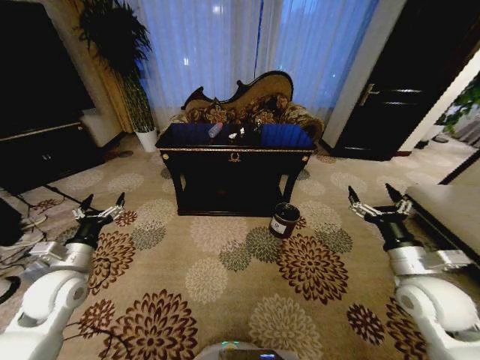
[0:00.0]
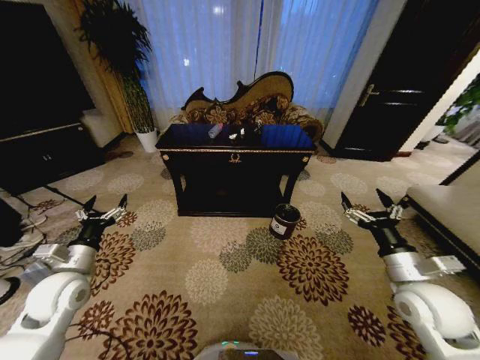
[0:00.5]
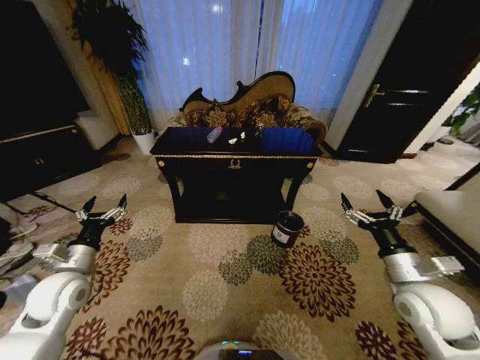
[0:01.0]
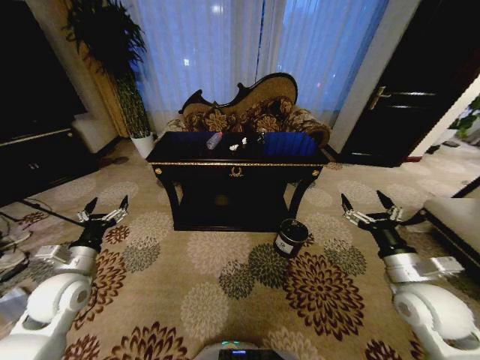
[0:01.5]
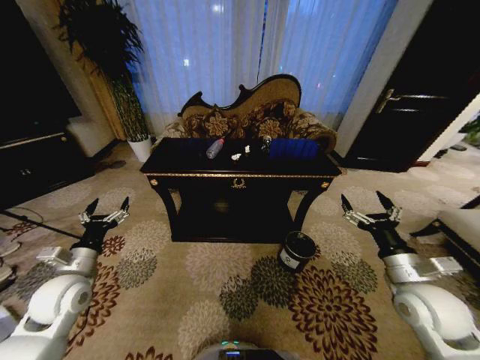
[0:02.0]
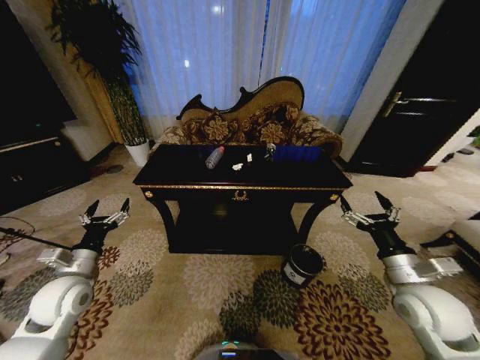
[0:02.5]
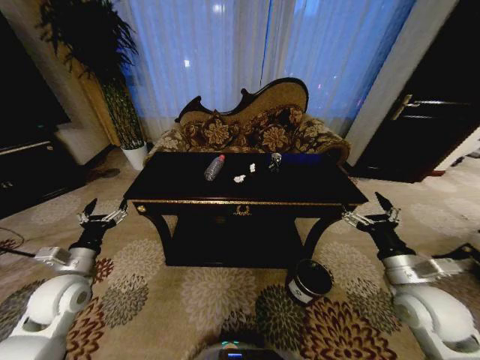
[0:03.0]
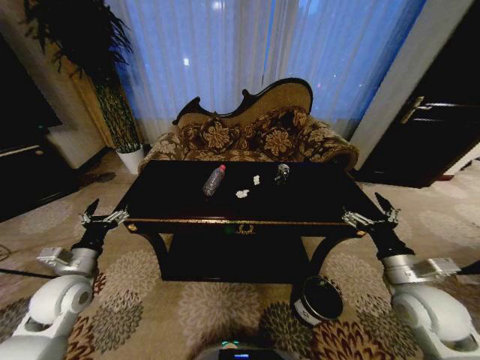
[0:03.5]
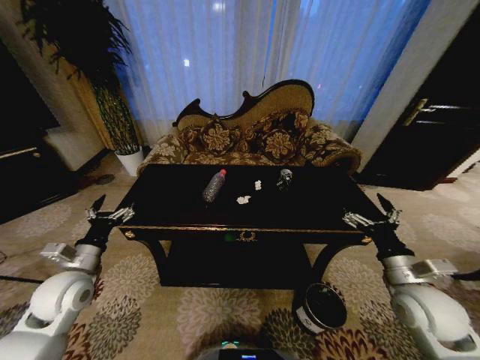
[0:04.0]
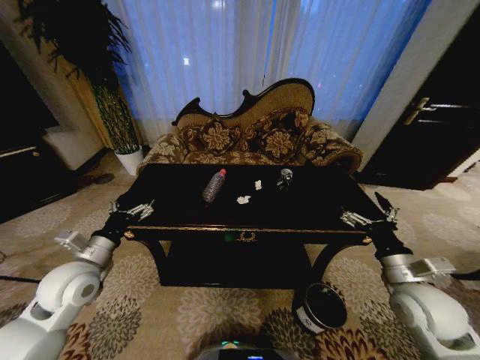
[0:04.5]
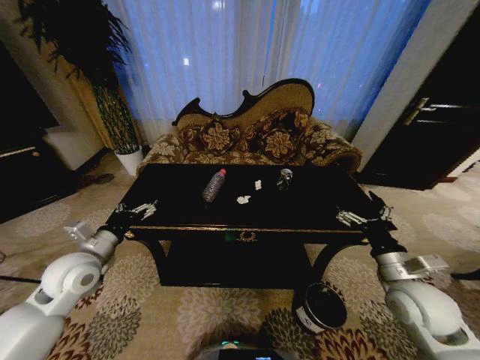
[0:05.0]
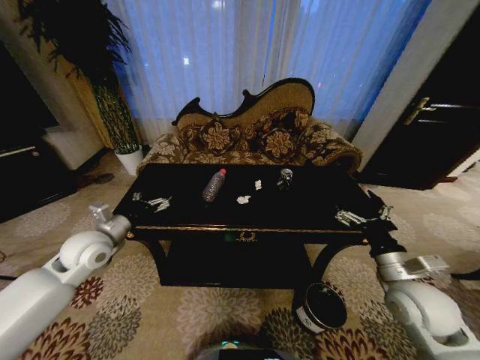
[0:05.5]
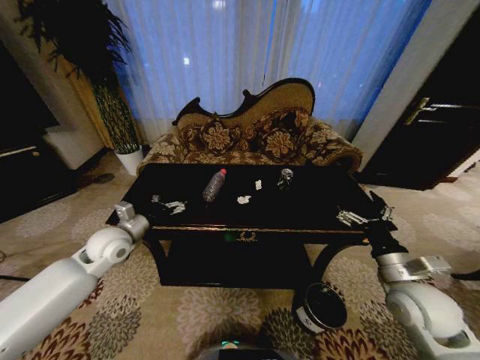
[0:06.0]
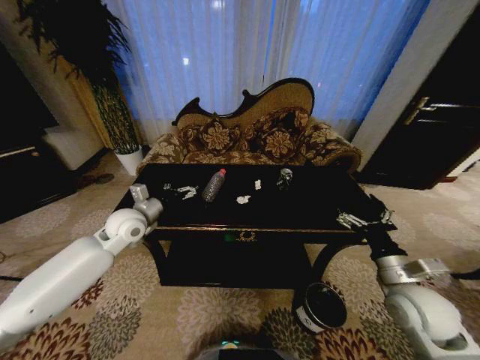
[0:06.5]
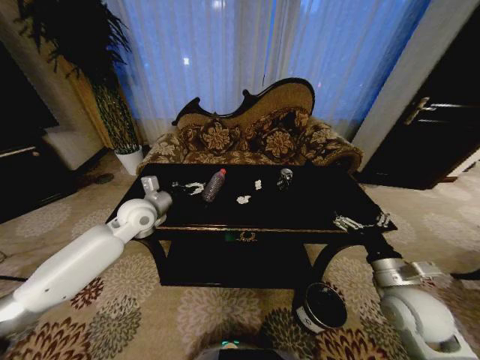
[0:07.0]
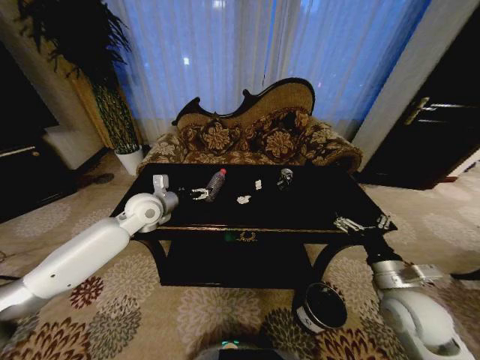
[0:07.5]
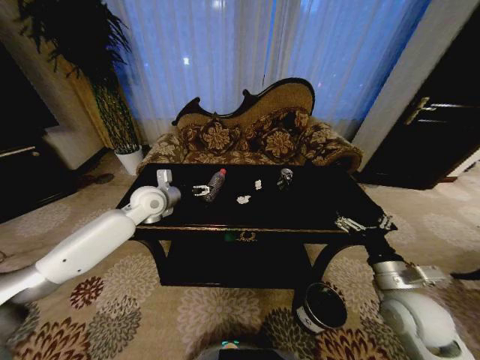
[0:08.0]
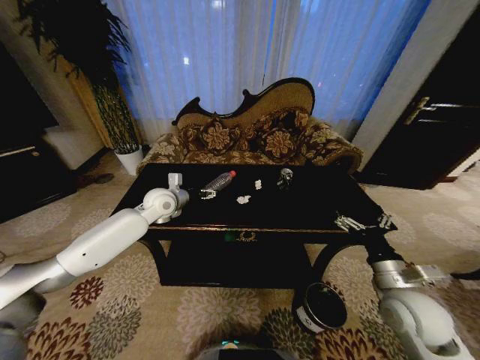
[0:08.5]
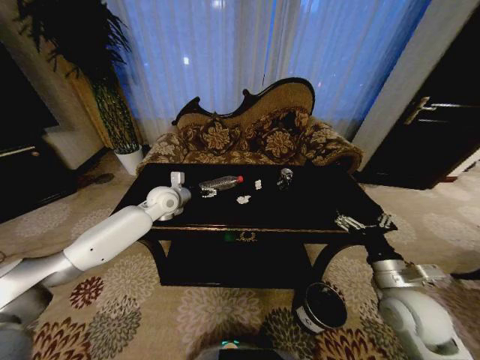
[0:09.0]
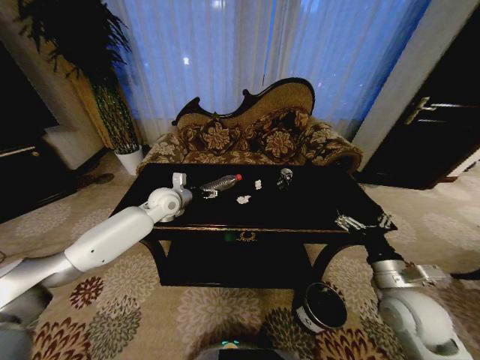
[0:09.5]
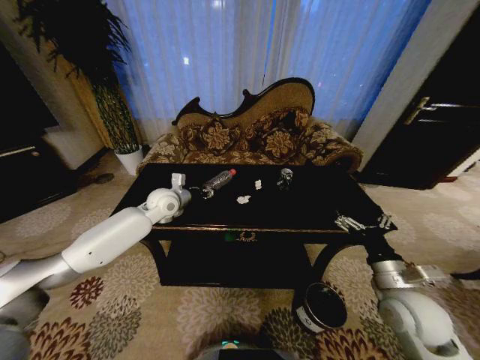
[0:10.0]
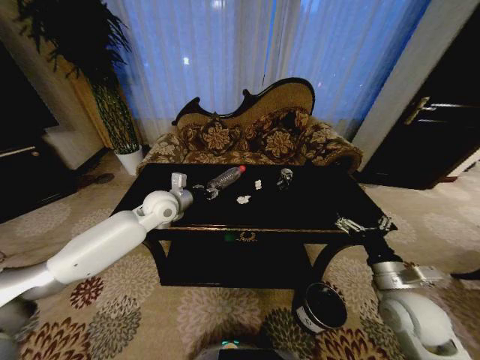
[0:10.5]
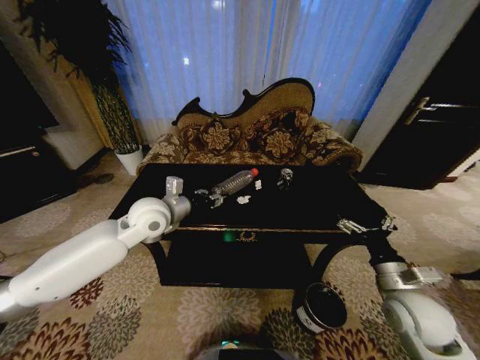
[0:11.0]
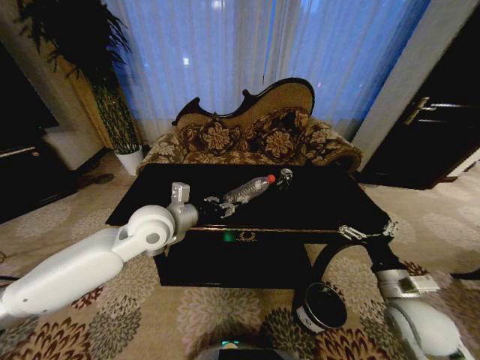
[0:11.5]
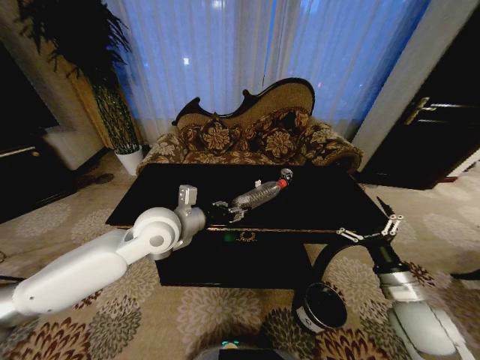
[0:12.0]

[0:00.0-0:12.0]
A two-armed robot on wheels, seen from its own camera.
Task of the whole recording: Move to the front of the table and place the trash on the table into the trash bin.
4.0 to 6.0 s: The left gripper is displaced forward and to the right by some 10 cm.
6.0 to 8.0 s: The left gripper travels forward, to the right and upward by approximately 15 cm.
8.0 to 10.0 s: The left gripper closes up.
10.0 to 12.0 s: The left gripper shifts about 15 cm backward and upward.

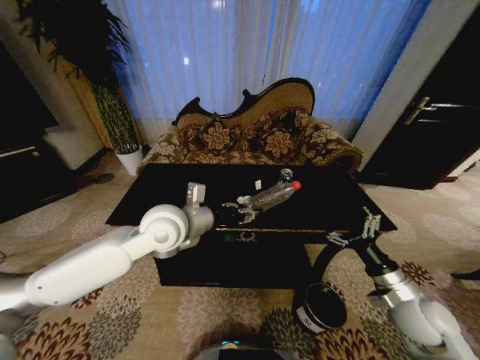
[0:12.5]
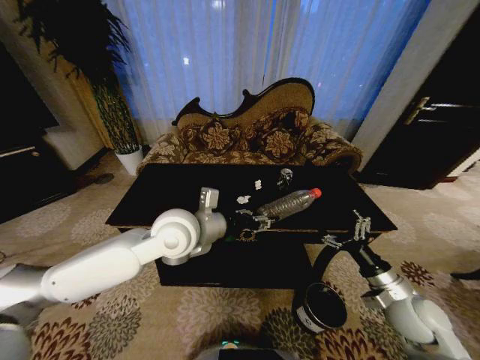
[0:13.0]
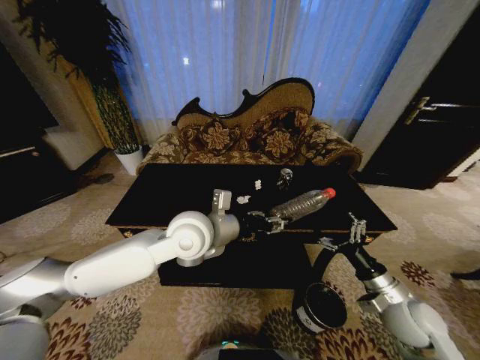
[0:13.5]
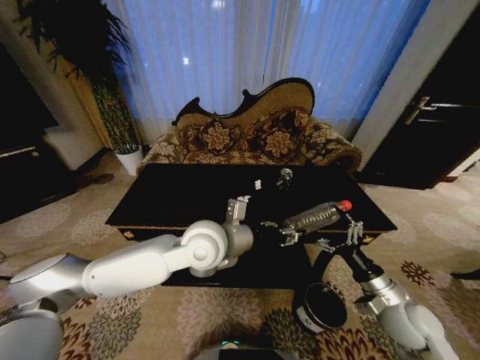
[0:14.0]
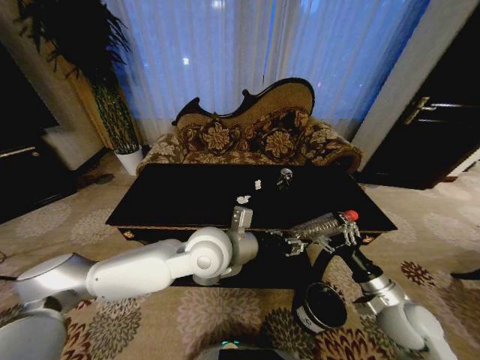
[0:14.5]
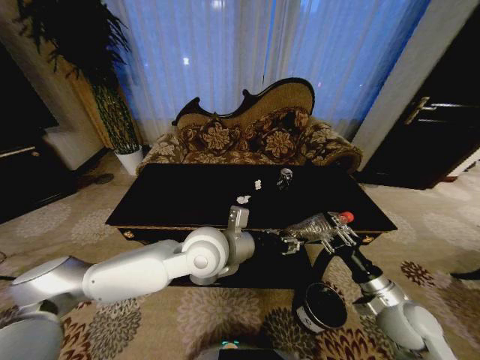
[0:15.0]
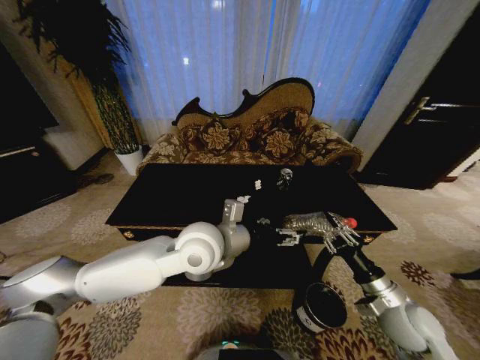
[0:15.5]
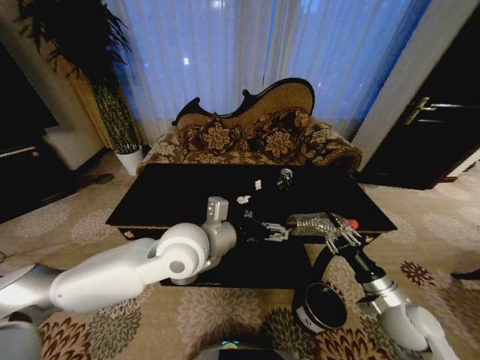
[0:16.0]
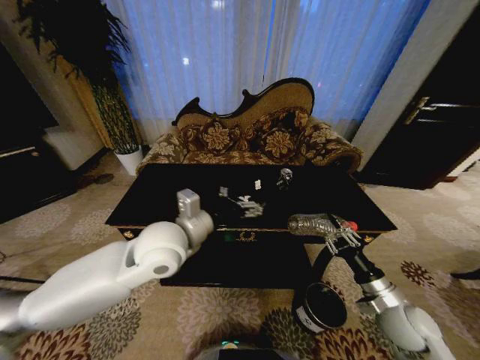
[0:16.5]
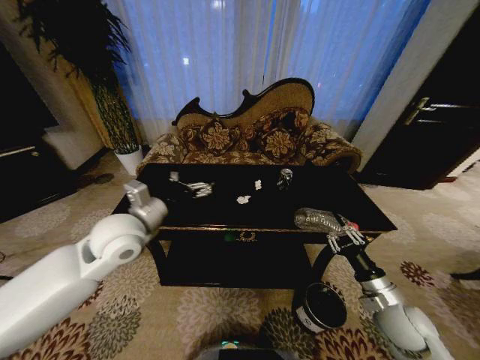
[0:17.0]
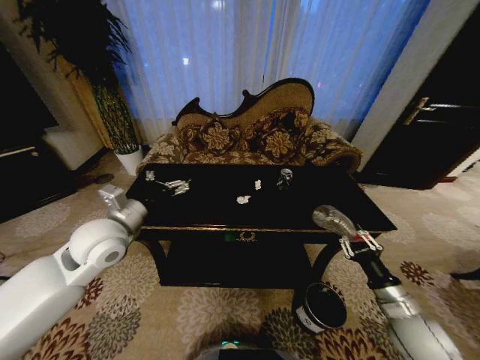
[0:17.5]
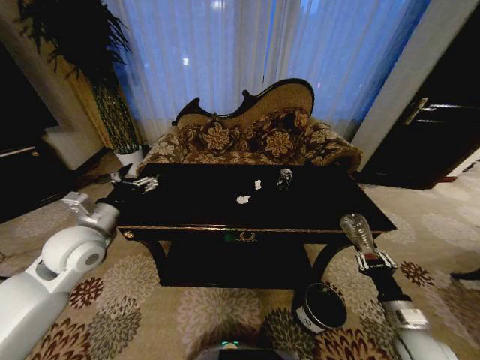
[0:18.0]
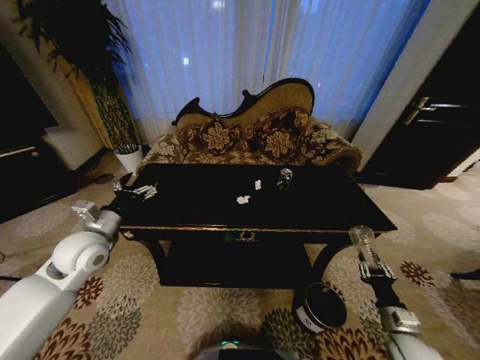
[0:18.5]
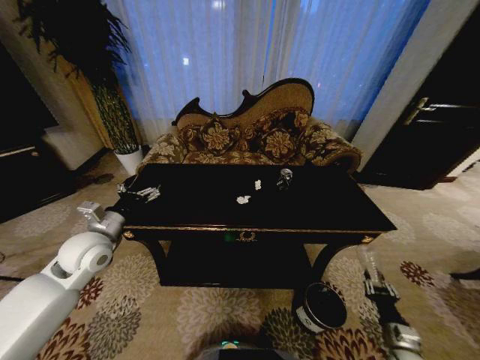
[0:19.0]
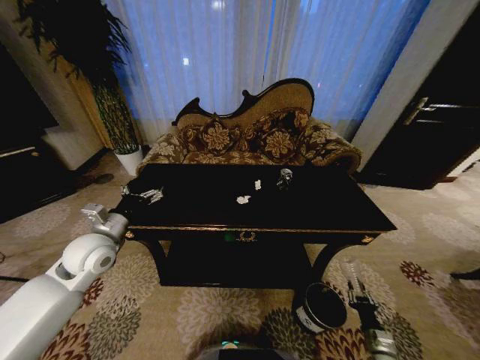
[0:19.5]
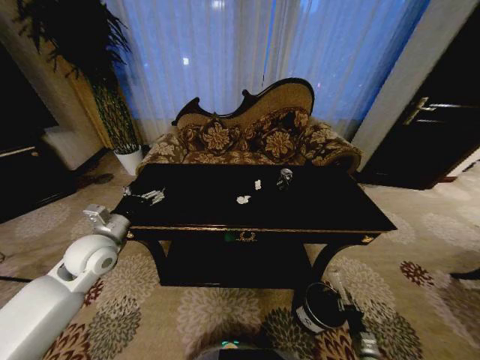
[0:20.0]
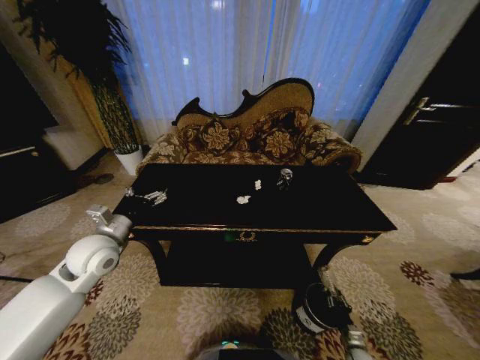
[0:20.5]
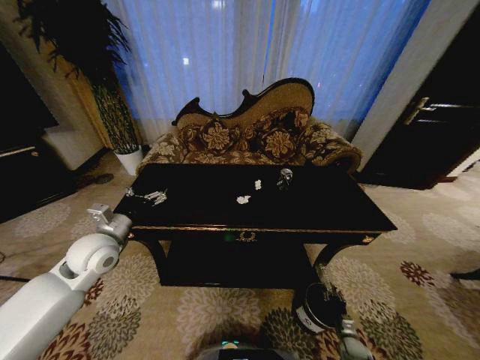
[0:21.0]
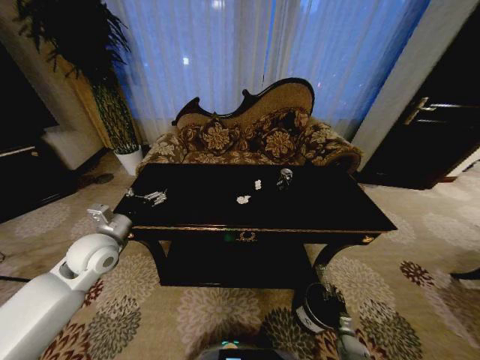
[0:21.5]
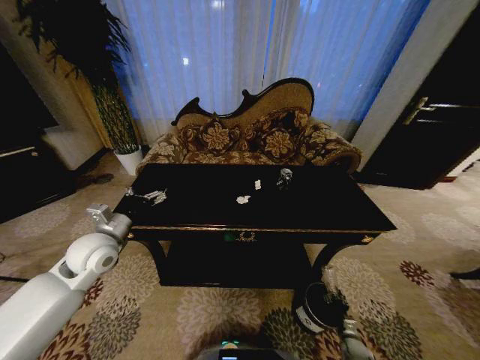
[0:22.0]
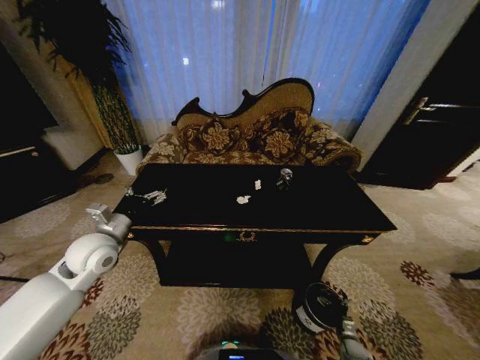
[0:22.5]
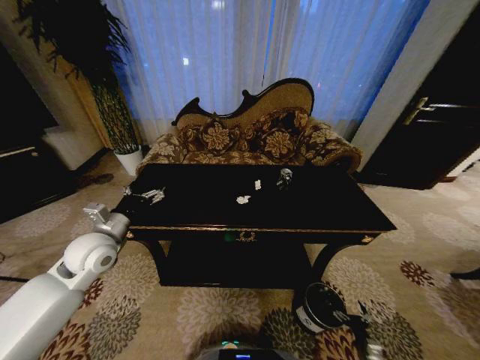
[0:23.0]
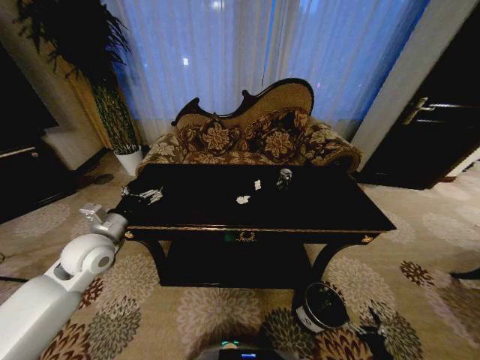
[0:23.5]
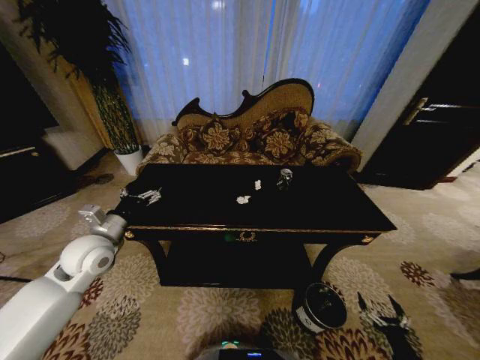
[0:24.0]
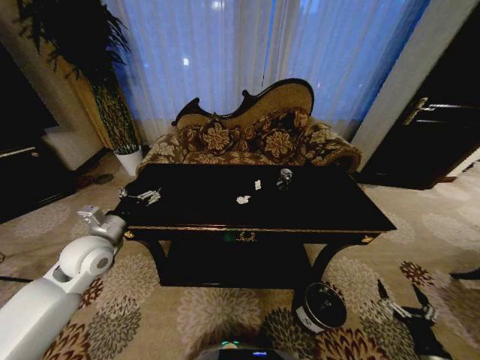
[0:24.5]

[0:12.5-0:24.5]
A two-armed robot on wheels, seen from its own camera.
Task of the whole recording: Move to the front of the table and place the trash on the table into the trash bin.
12.5 to 14.5 s: The left gripper travels to the right by about 10 cm.
14.5 to 16.5 s: The right gripper closes, while the left gripper moves to the left, some 10 cm, and opens.
16.5 to 18.5 s: The left gripper goes roughly 20 cm to the left. Meanwhile the right gripper is displaced downward and to the right by roughly 10 cm.
18.5 to 20.5 s: The right gripper is displaced downward by some 20 cm.
20.5 to 22.5 s: The right gripper opens up.
22.5 to 24.5 s: The right gripper shifts about 25 cm upward and backward.

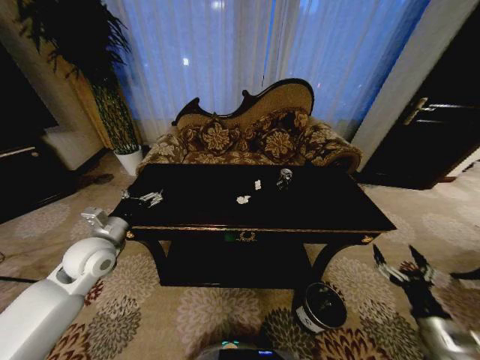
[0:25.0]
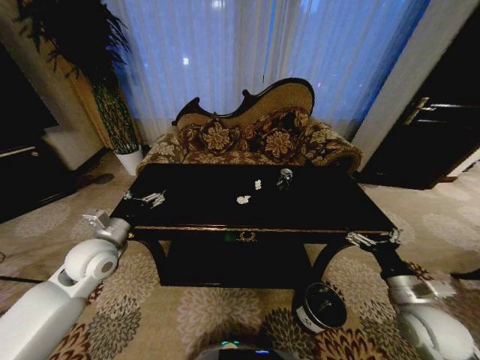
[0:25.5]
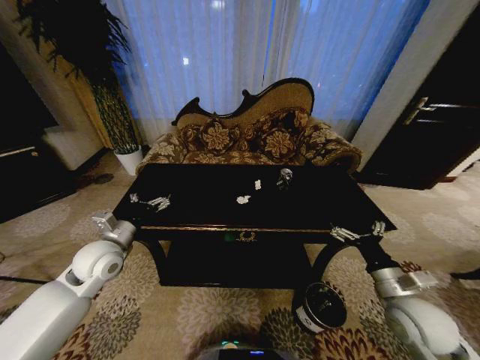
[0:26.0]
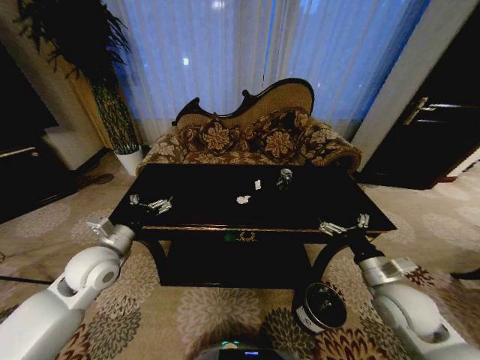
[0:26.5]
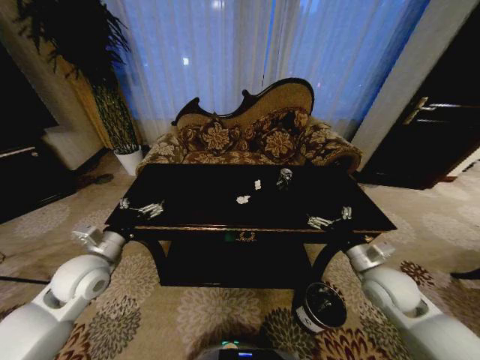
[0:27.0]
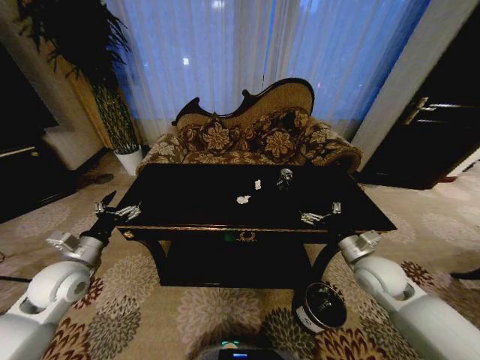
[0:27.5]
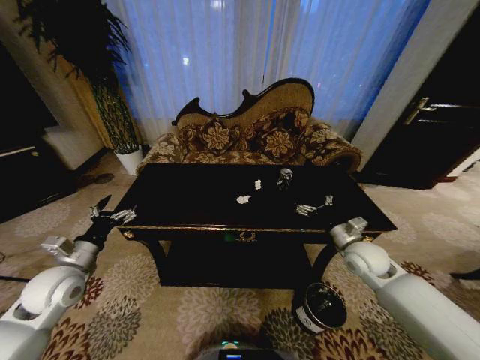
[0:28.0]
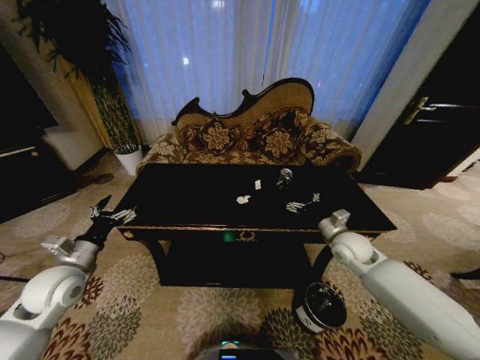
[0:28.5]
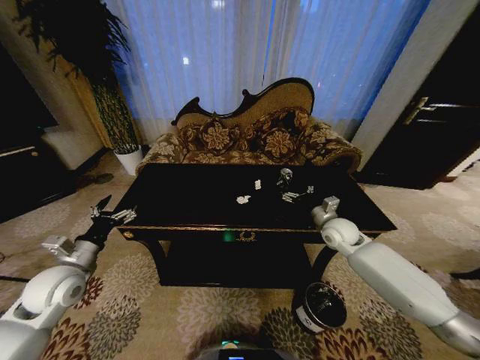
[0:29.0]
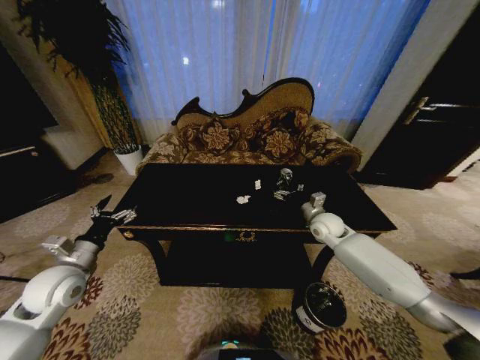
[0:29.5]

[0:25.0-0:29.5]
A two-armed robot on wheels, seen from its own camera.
Task of the whole recording: Move to the front of the table and place the trash on the table into the trash bin.
25.0 to 27.0 s: The right gripper heads forward, to the left and upward, covering roughly 20 cm.
27.0 to 29.5 s: The left gripper shifts about 5 cm to the left. Meanwhile the right gripper goes some 20 cm forward.
